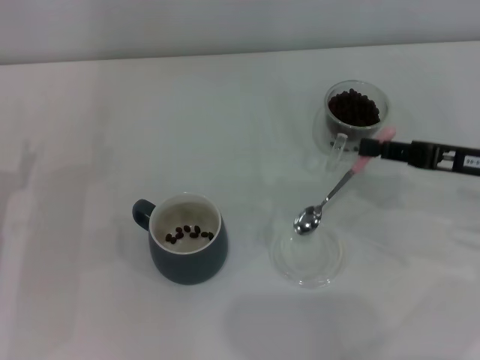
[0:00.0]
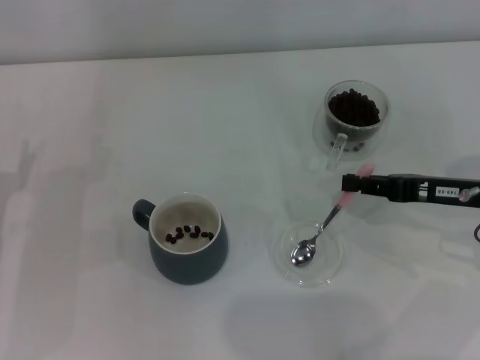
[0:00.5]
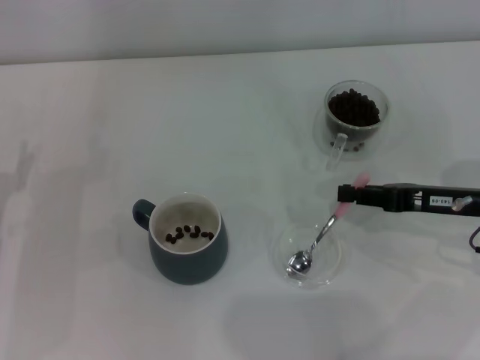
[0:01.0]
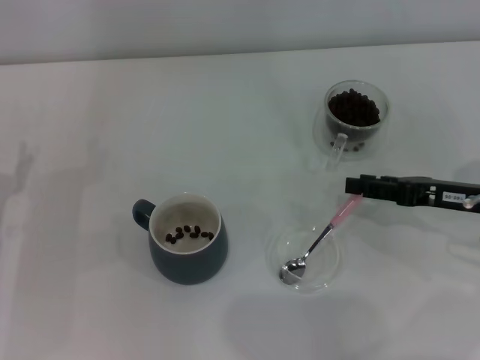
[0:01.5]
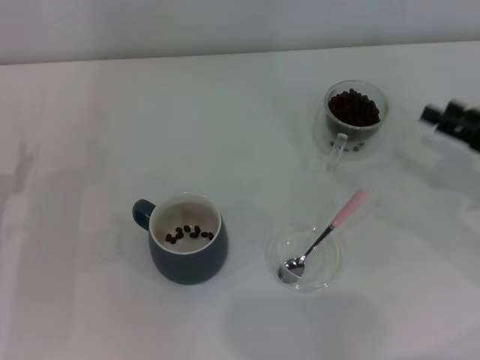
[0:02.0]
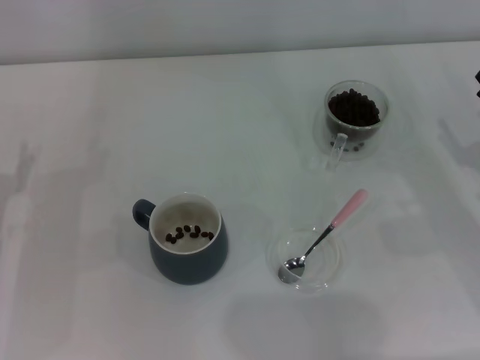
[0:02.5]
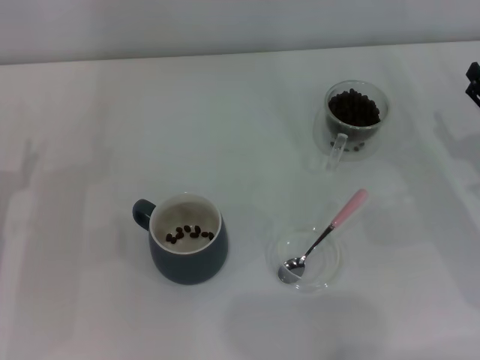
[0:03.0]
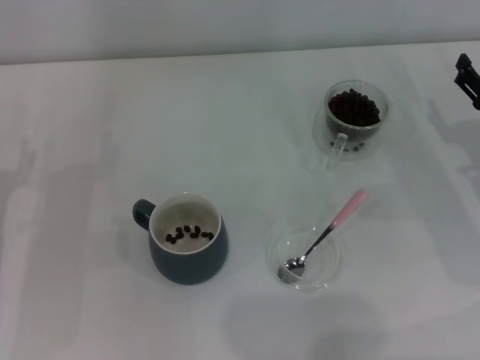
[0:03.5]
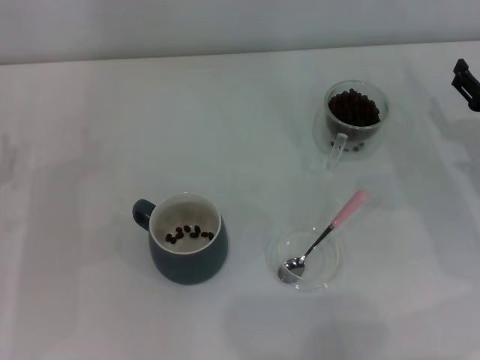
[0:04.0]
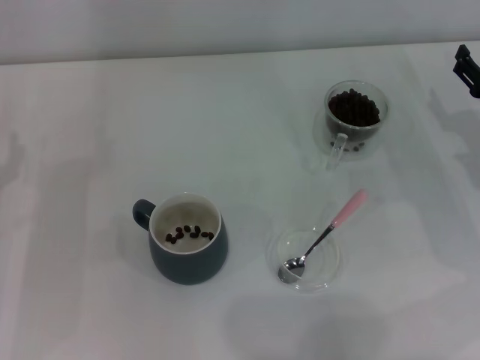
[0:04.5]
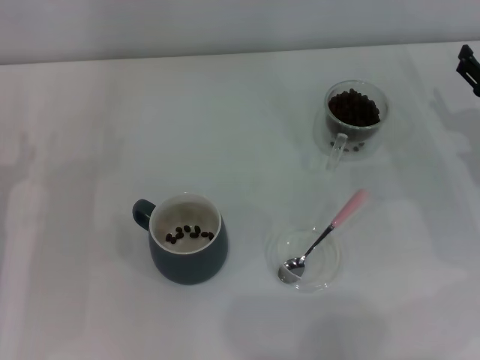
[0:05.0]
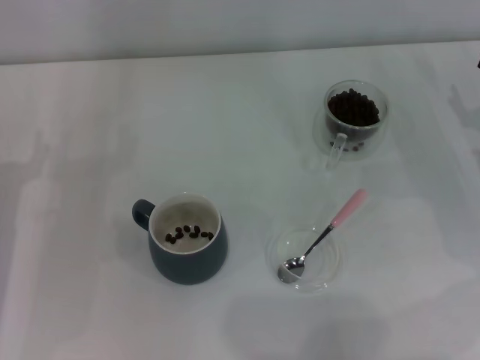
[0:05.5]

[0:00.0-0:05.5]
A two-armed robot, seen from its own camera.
Task of the whole recording: Use a pink spoon to take out the coffee beans from the glass and pour them into the gray cup.
Step, 0:00.0 to 0:01.5: Place the spoon back in its original place with the right gripper.
0:00.0 to 0:02.0: The right gripper changes place by about 5 cm, and opens.
0:02.0 to 0:03.5: The right gripper shifts by roughly 5 cm.
